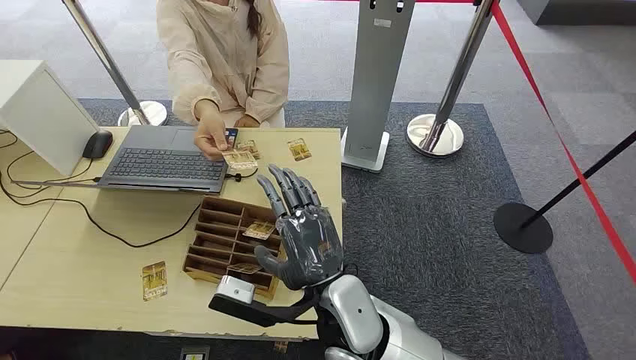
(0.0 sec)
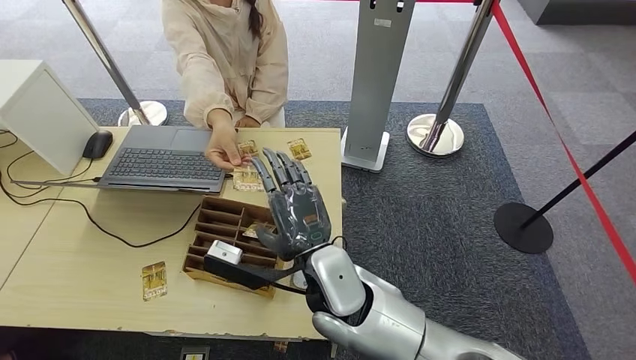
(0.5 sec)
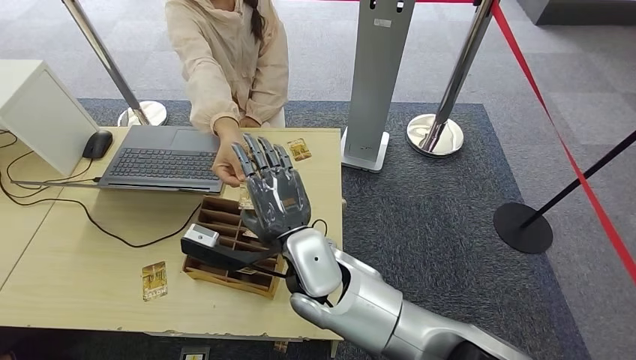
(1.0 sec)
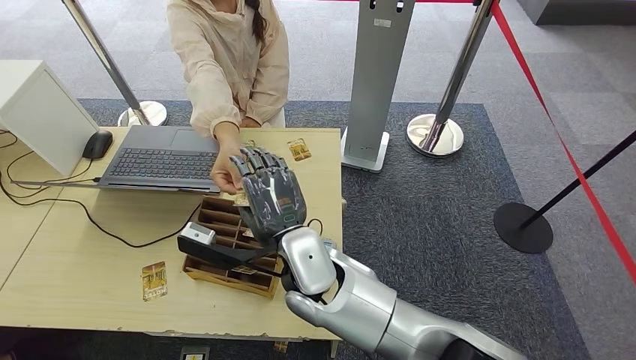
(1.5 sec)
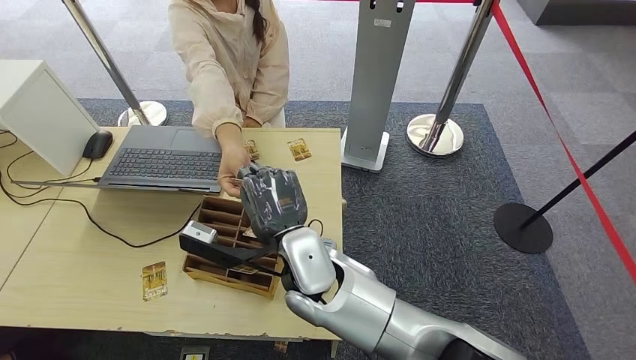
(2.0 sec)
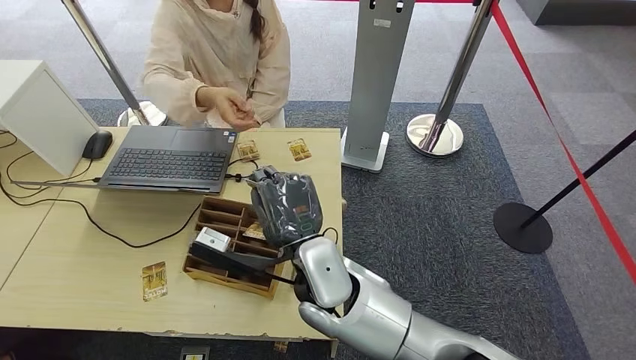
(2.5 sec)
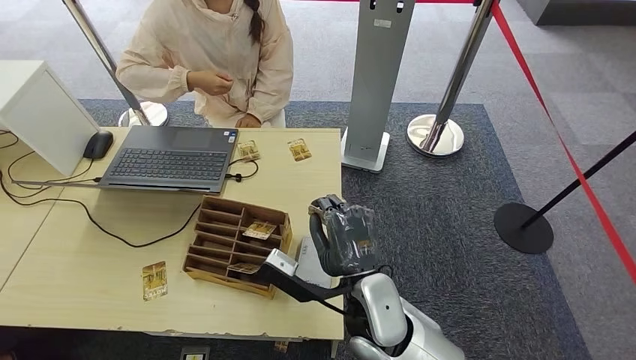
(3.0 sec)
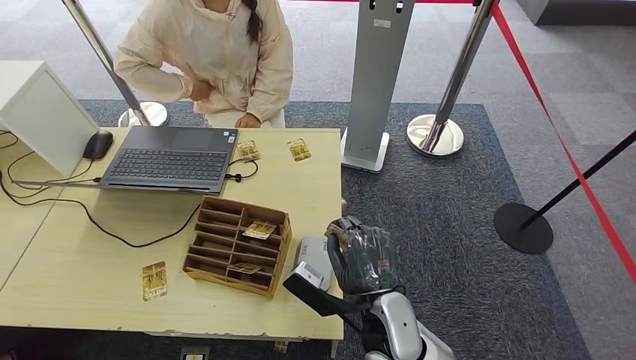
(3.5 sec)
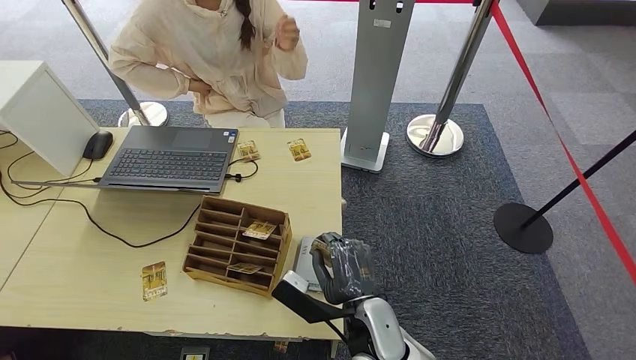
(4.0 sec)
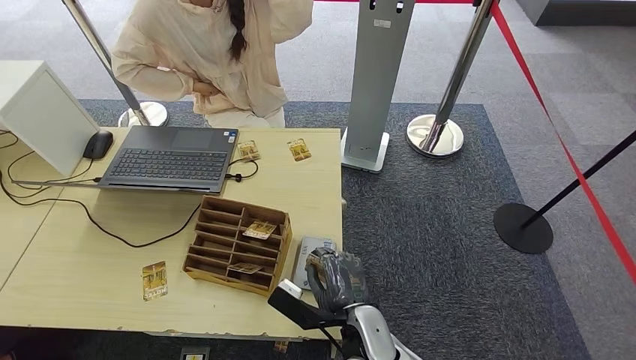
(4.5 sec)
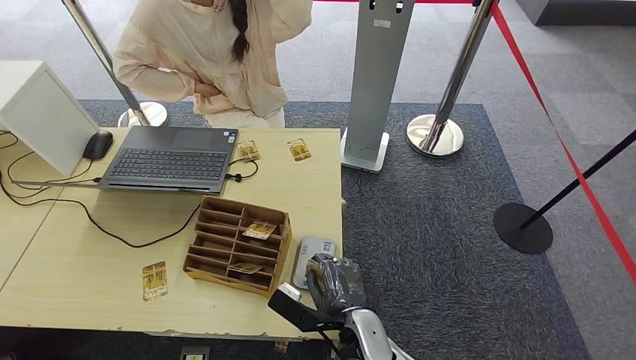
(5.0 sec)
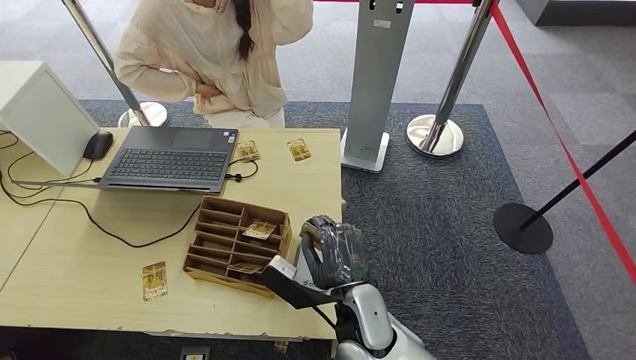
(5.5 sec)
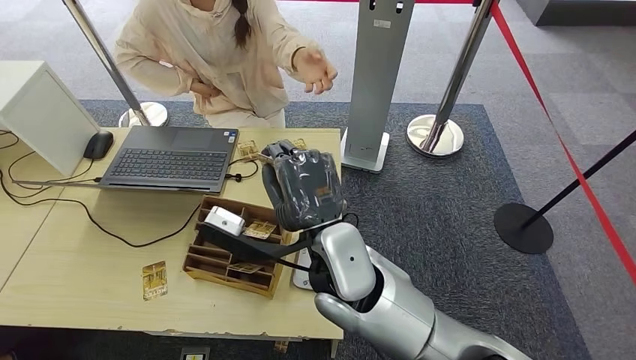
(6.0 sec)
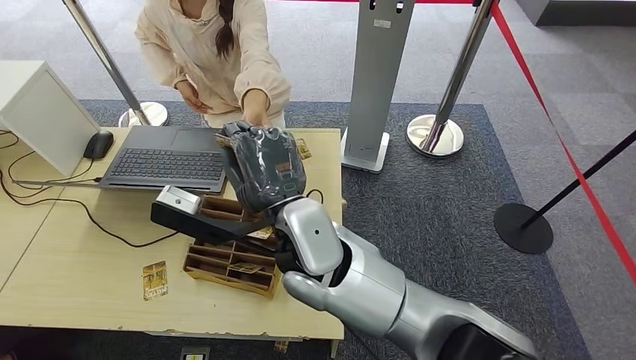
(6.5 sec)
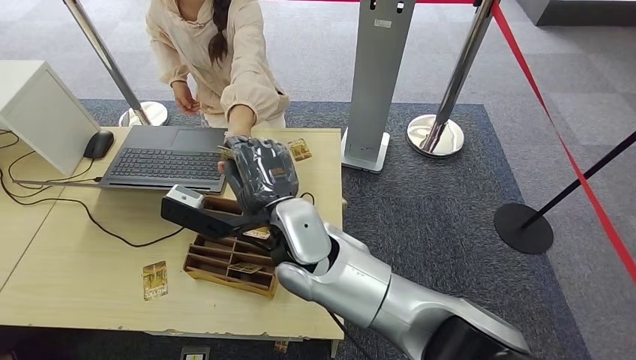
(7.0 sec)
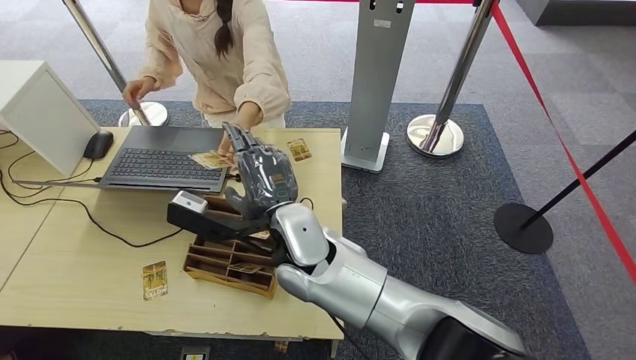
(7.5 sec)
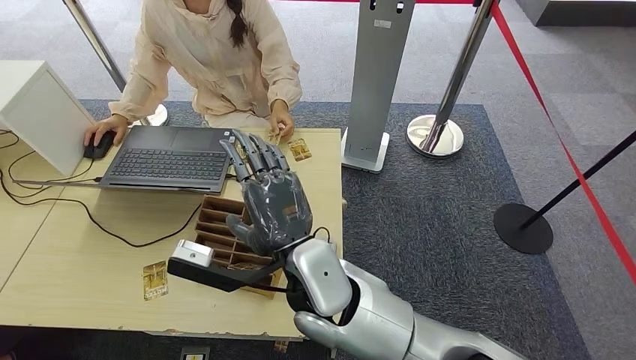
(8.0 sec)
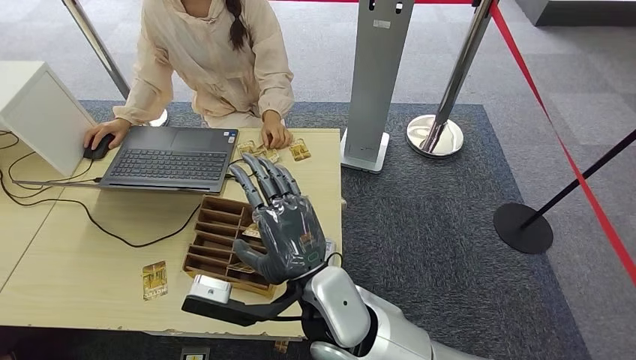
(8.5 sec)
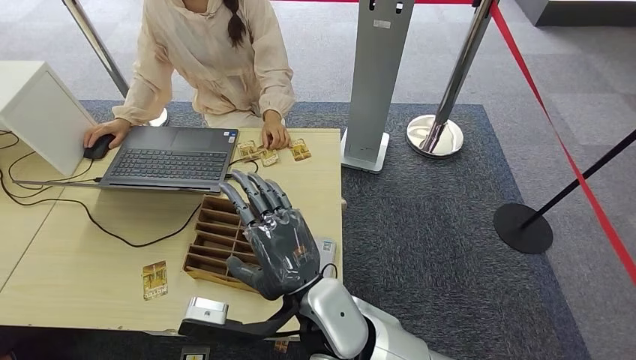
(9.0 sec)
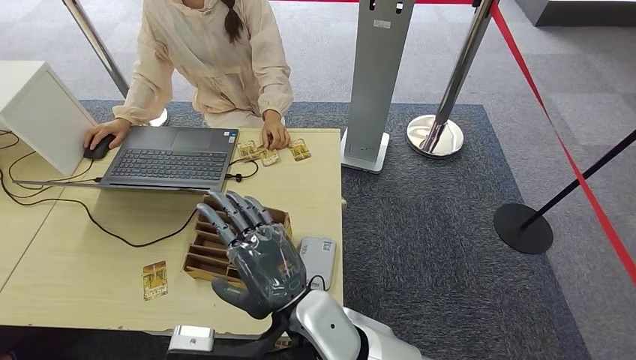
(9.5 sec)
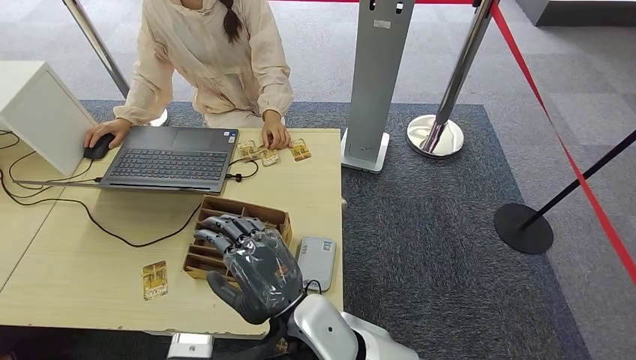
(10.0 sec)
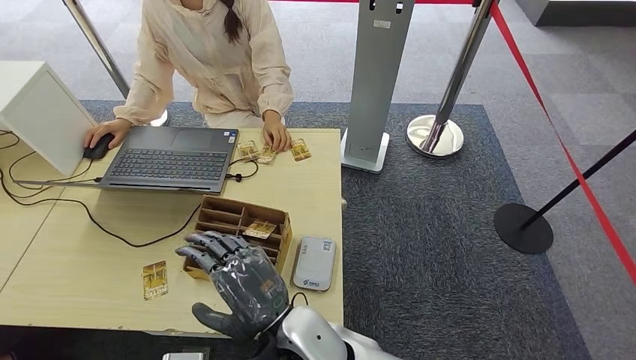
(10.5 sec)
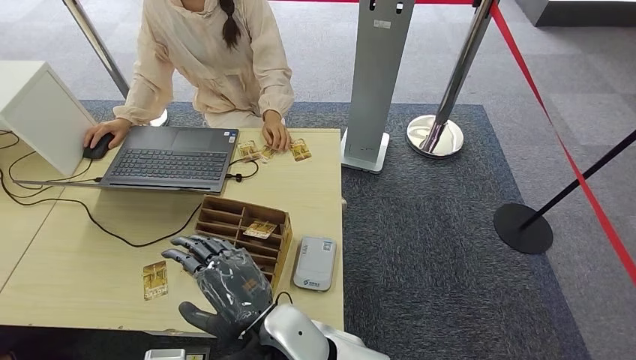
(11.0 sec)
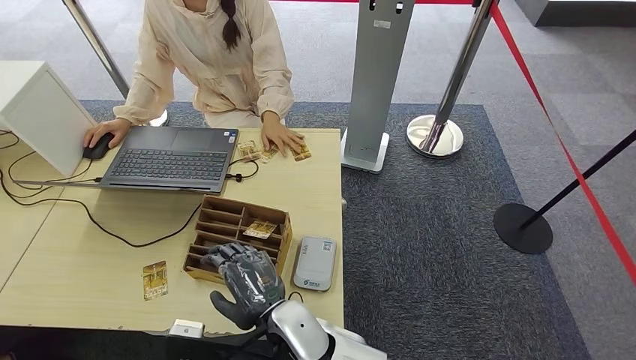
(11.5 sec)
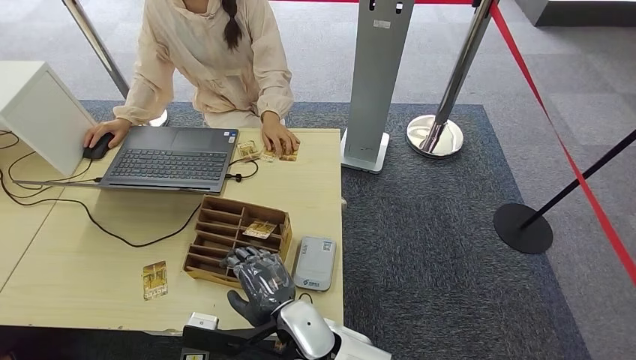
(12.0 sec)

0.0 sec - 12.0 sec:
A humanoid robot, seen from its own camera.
Step, 0.0 sec - 2.0 sec: Take the ID card from the person's hand.
Step, 2.5 sec - 4.5 sec: Place the ID card on the card reader.
Step, 5.0 sec - 8.5 sec: Hand the ID card to the person.
2.0 sec - 4.0 sec: The right hand shifts approximately 15 cm downward, to the right and backward.
4.0 sec - 6.0 sec: The right hand heads upward, covering roughly 15 cm.
8.0 sec - 10.0 sec: The right hand moves backward, approximately 5 cm.
10.0 sec - 12.0 sec: The right hand heads downward, covering roughly 10 cm.

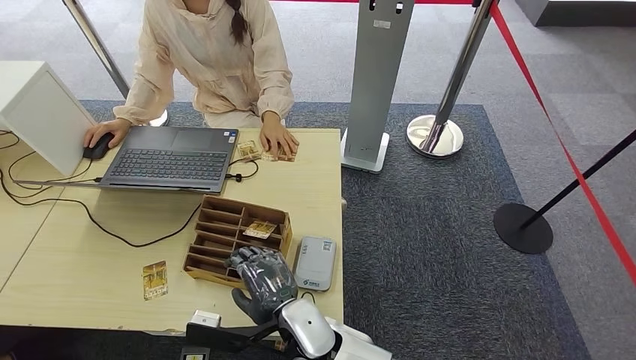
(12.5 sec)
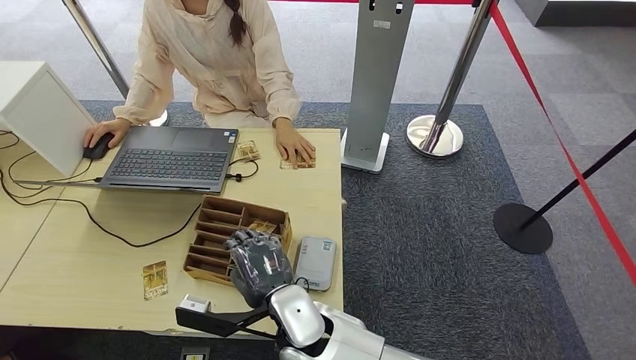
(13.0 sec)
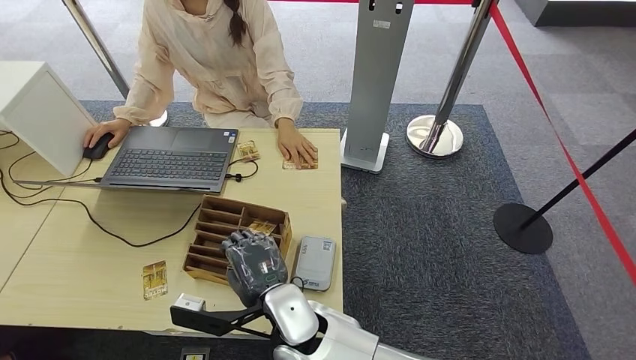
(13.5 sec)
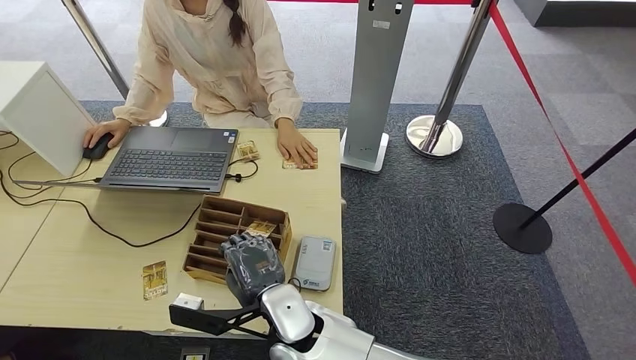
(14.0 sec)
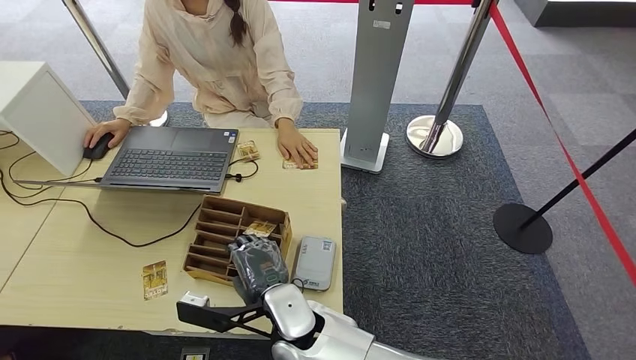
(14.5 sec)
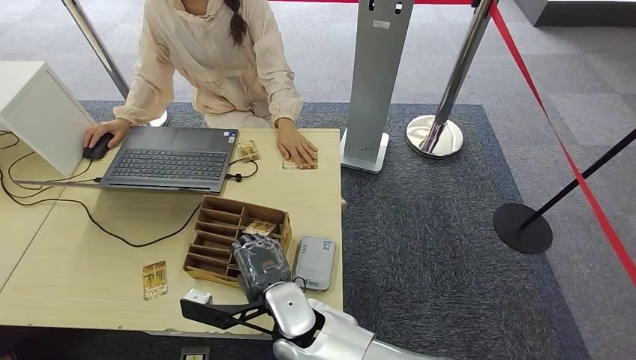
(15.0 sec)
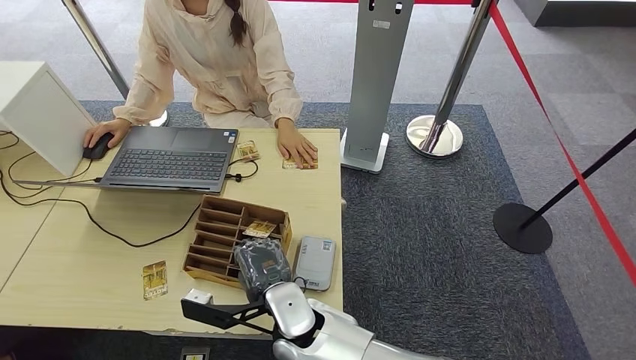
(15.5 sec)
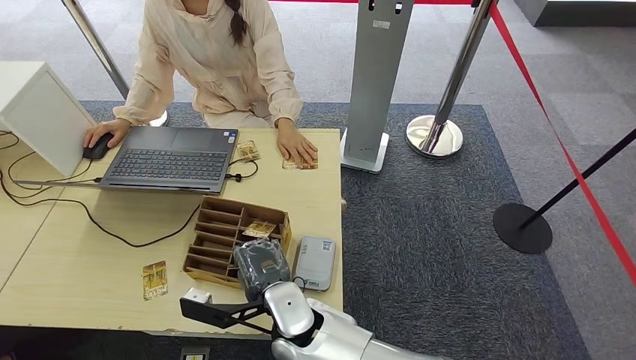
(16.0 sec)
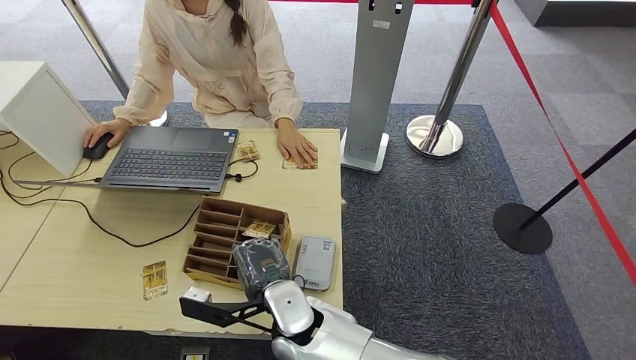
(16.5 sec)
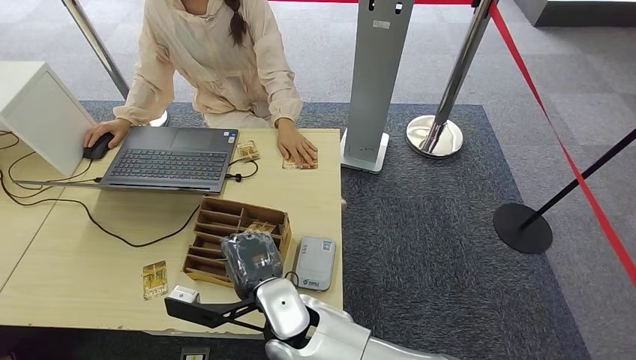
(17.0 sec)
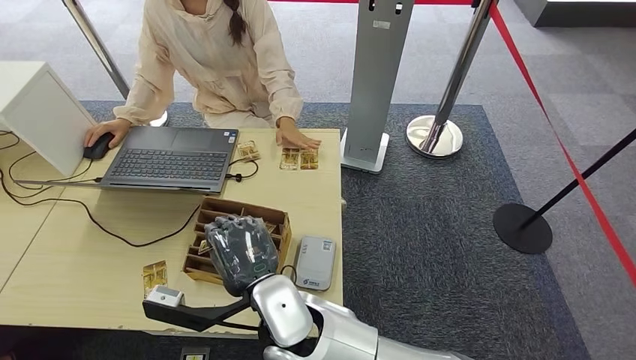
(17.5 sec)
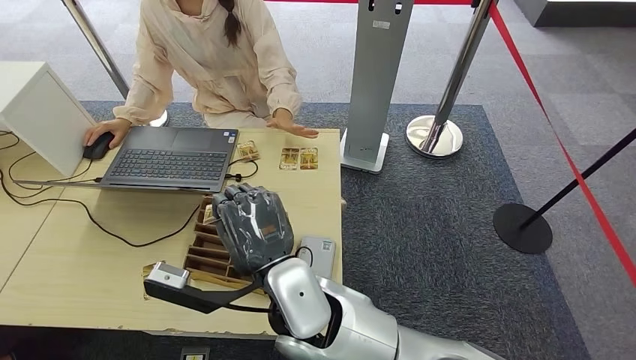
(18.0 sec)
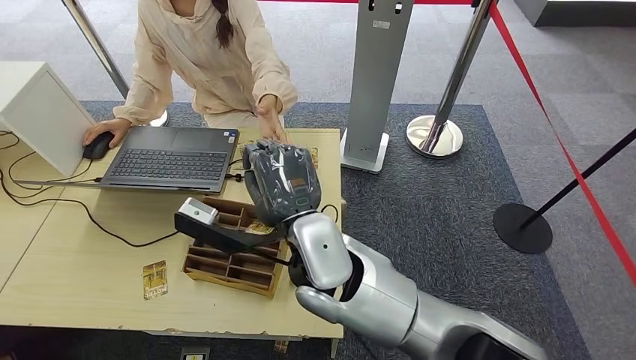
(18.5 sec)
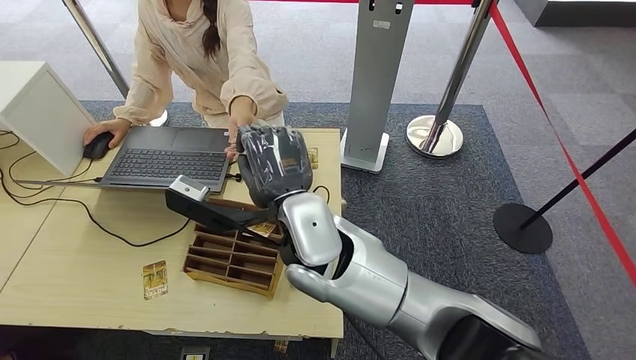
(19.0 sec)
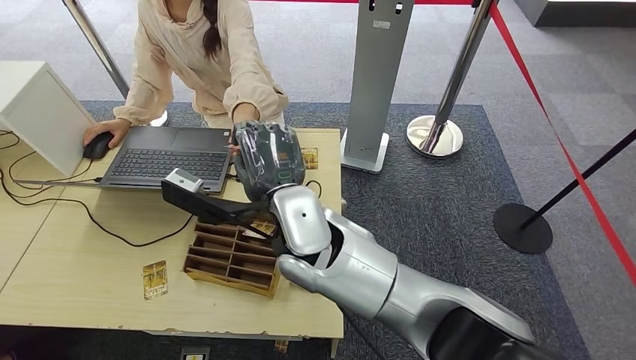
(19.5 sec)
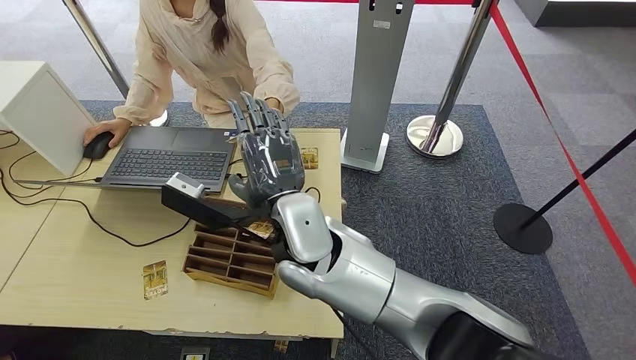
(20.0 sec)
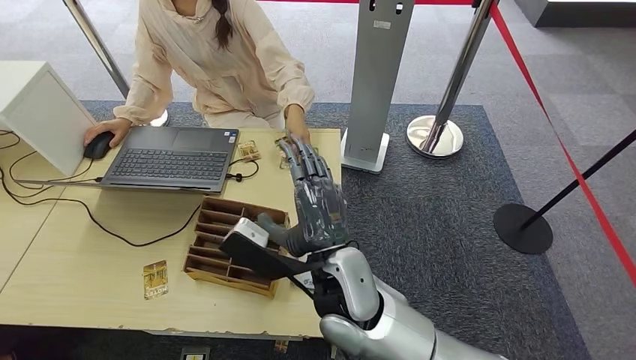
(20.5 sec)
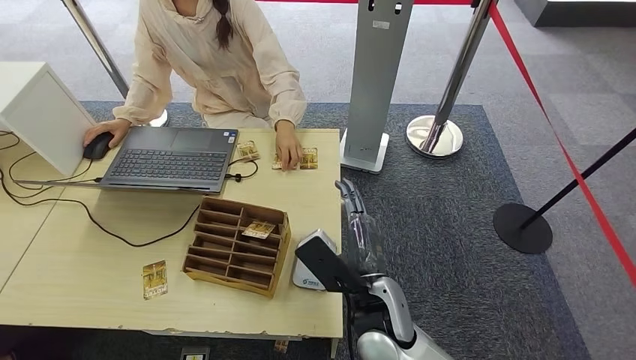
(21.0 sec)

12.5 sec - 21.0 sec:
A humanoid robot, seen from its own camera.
Step, 12.5 sec - 17.5 sec: Pick up the room key from the key card box.
Step, 18.0 sec - 21.0 sec: Hand the room key to the person.
12.5 sec - 14.5 sec: The hands make only small movements.
14.5 sec - 16.5 sec: Neither hand changes place.
16.5 sec - 19.0 sec: The right hand travels upward by about 15 cm.
19.0 sec - 21.0 sec: The right hand heads downward, to the right and backward, covering approximately 20 cm.
